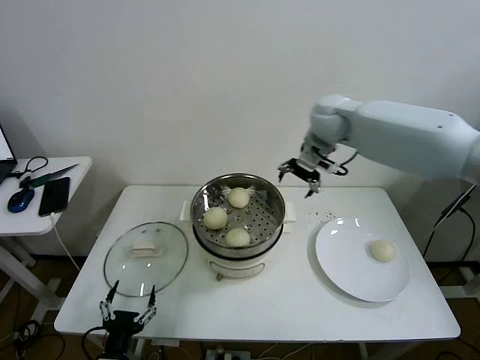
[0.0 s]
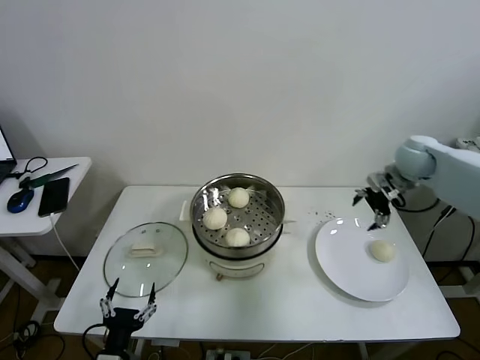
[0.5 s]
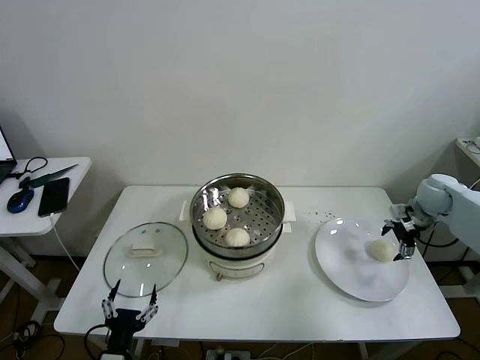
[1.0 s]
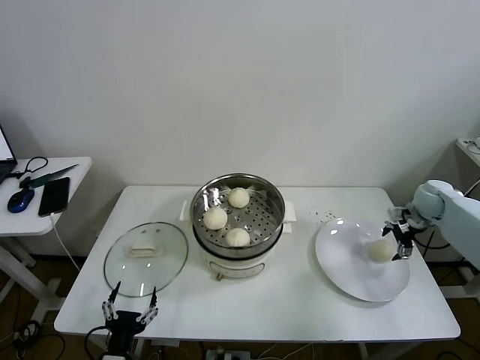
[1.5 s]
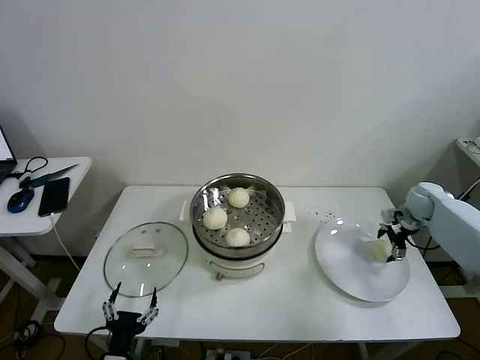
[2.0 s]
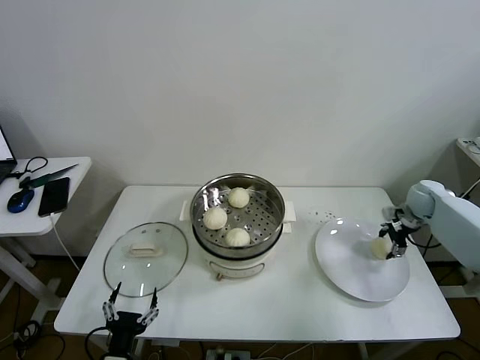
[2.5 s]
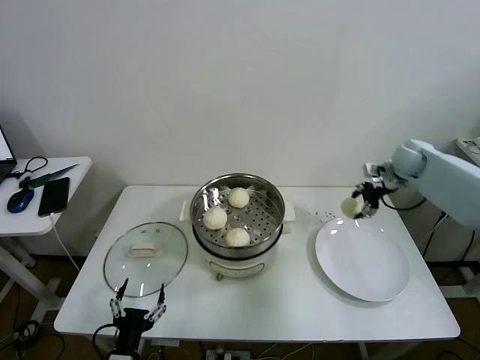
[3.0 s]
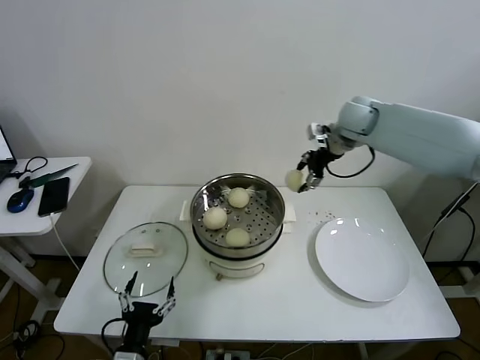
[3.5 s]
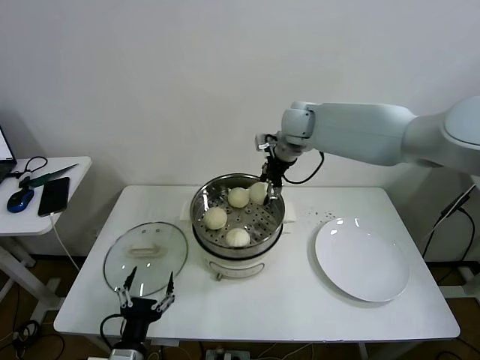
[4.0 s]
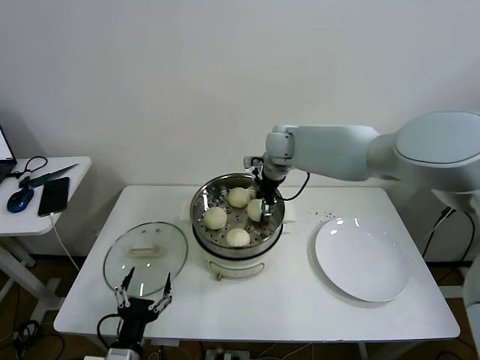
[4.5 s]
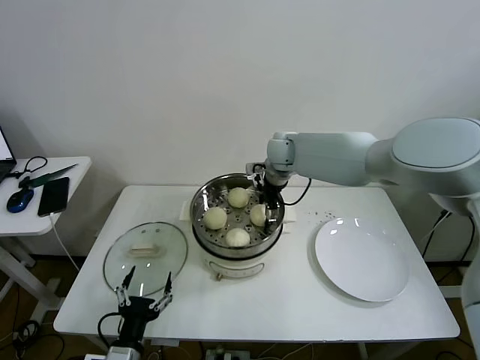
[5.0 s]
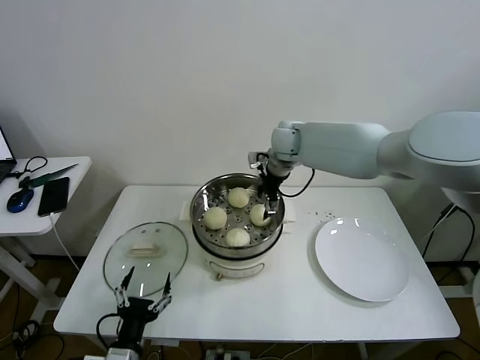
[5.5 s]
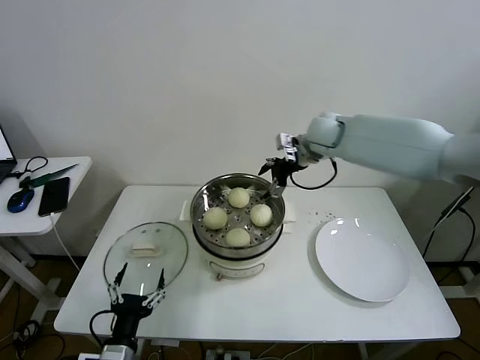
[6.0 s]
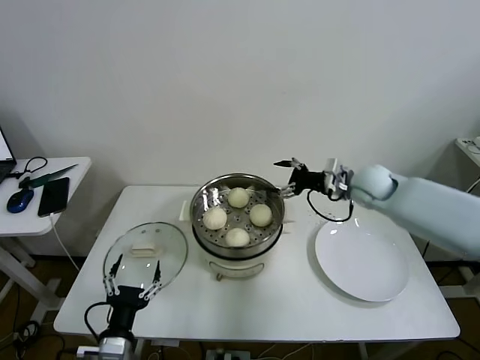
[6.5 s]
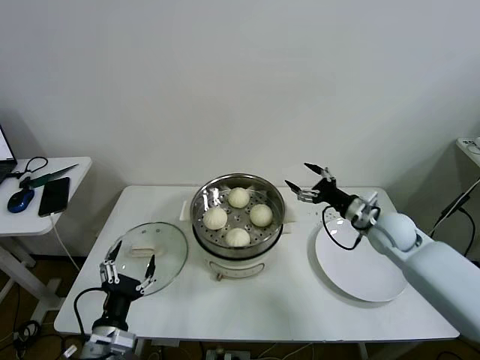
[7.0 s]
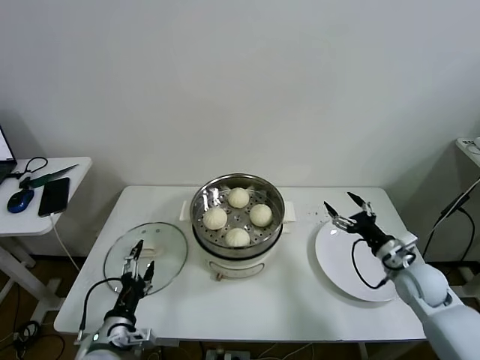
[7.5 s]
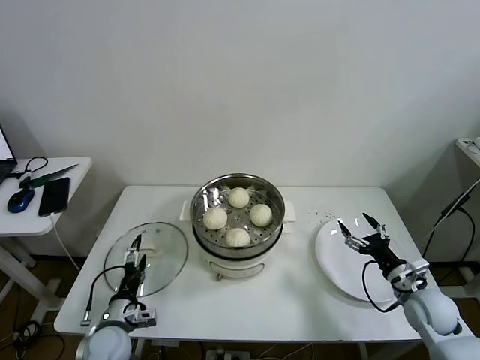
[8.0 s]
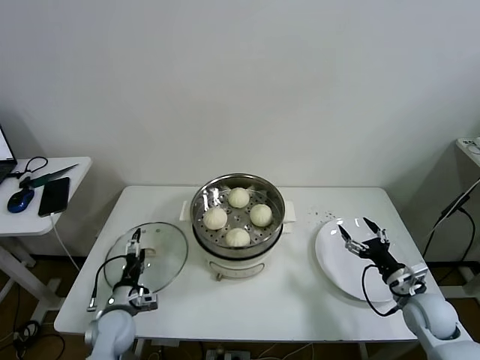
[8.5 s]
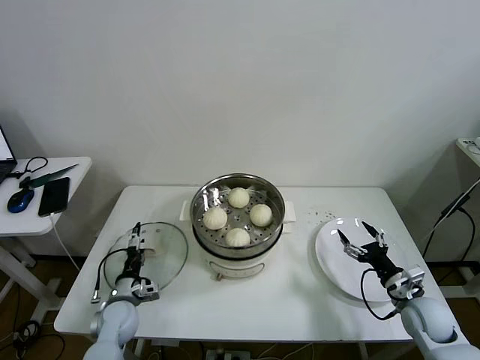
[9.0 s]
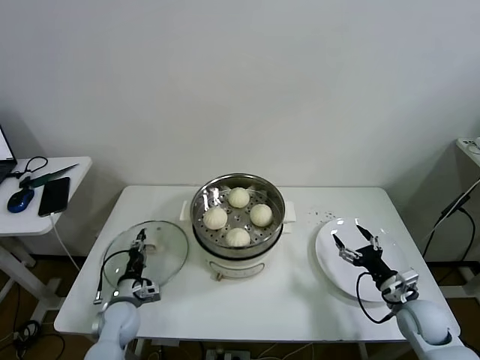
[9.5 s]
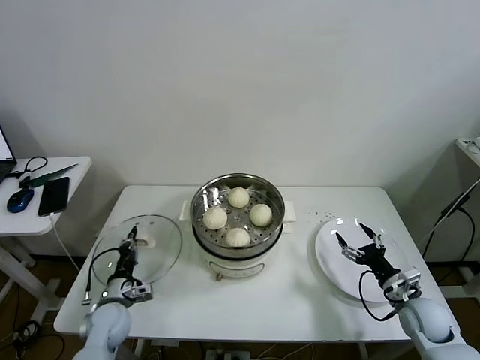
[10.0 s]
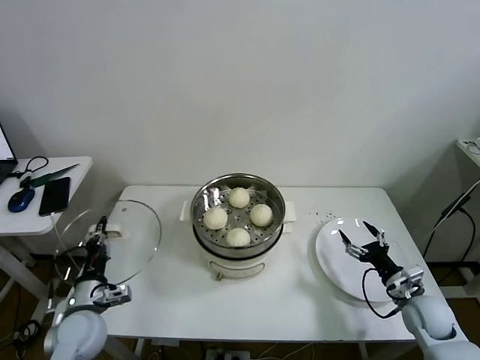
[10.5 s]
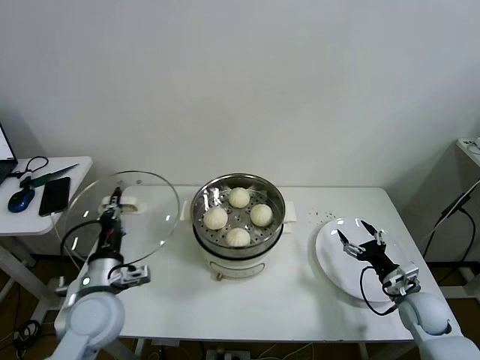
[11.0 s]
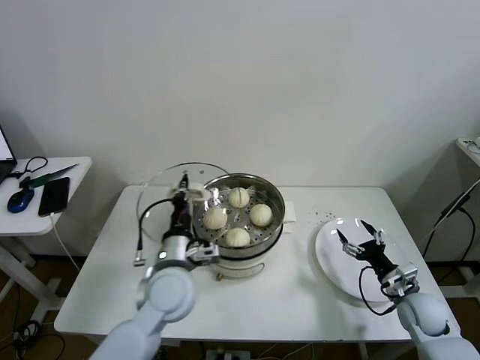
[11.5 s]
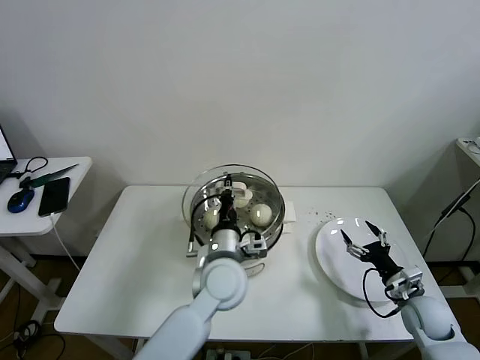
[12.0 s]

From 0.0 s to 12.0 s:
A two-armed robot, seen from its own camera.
Task of the whole recording: take steamed baozi put them in steamer then cover it.
Step, from 0.0 s to 2.0 s: Grasp the baozi in the plate with right gripper.
Step, from 2.5 s to 5.0 s: Place the baozi on the steamer with right gripper.
Step, from 5.5 s to 9.5 s: Grasp the pot lid with left gripper.
From 0.0 s to 2.0 s: The right gripper is displaced to the right and downward by roughly 35 cm.
From 2.0 s to 4.0 s: The right gripper heads to the left and upward, covering about 40 cm, and closes its fingers. The left gripper ends up about 5 cm from where it was.
From 4.0 s to 6.0 s: The right gripper shifts approximately 5 cm to the right, and opens up.
From 6.0 s to 8.0 s: The right gripper shifts roughly 50 cm backward, downward and to the right; the left gripper shifts roughly 10 cm forward and downward.
From 8.0 s to 10.0 s: The left gripper is displaced forward by about 5 cm, and closes.
From 10.0 s to 12.0 s: The left gripper travels to the right and upward by about 35 cm.

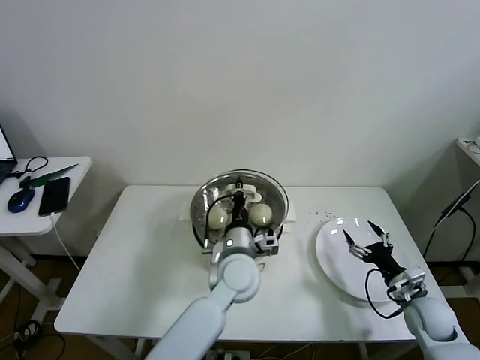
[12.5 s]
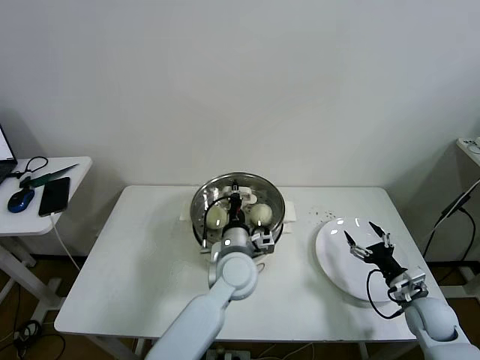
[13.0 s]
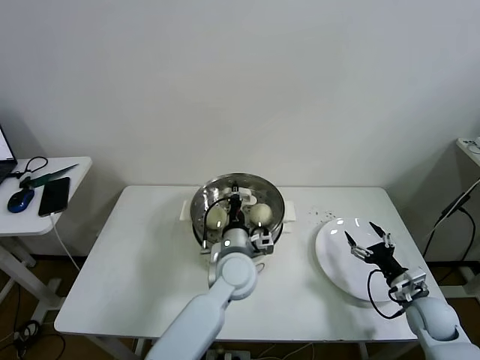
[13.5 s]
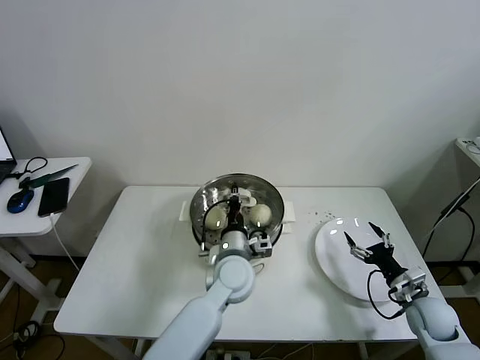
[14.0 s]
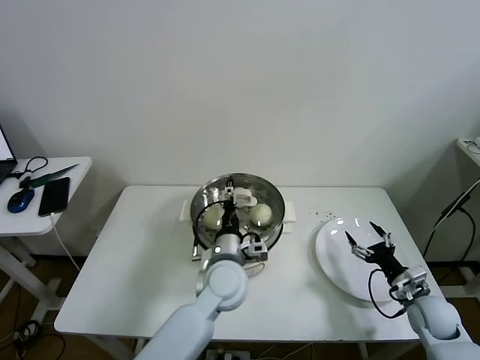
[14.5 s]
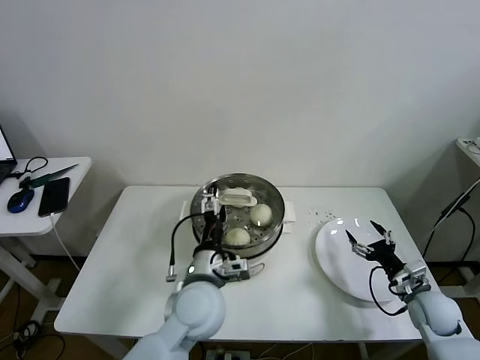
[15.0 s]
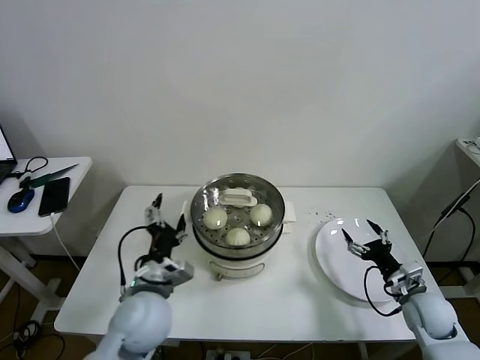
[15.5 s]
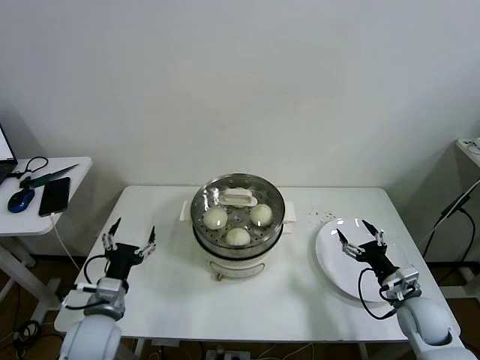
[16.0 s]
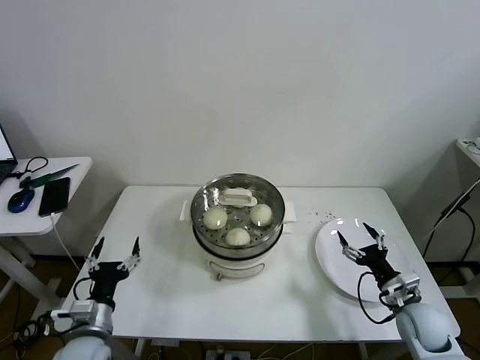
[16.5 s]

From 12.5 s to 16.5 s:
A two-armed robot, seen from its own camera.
Task of the whole recording: take steamed baozi put them in steamer then cover it.
From 12.5 s to 14.5 s: The left gripper opens its fingers.
From 14.5 s to 16.5 s: The right gripper shifts by some 5 cm. Meanwhile the left gripper moves to the left and backward, approximately 30 cm, and opens its fingers.
